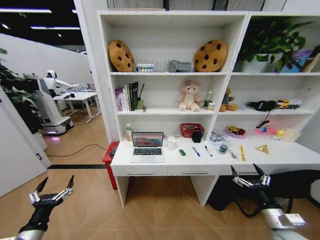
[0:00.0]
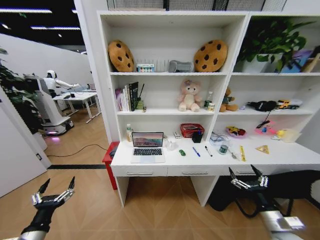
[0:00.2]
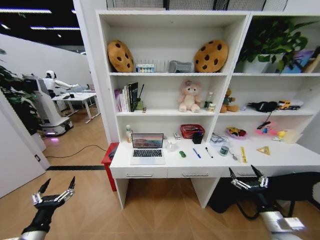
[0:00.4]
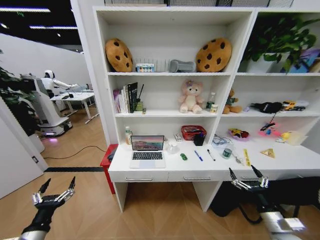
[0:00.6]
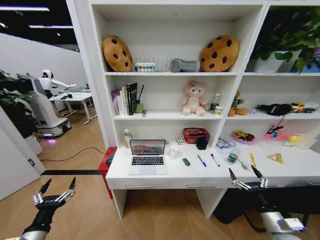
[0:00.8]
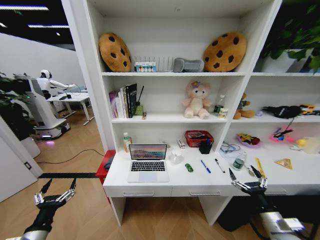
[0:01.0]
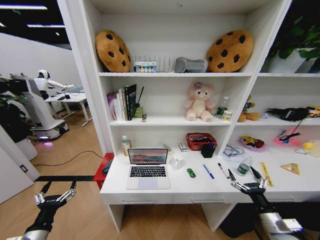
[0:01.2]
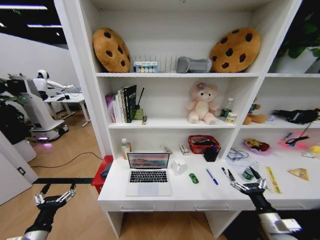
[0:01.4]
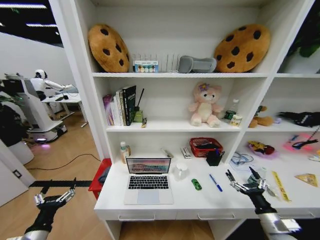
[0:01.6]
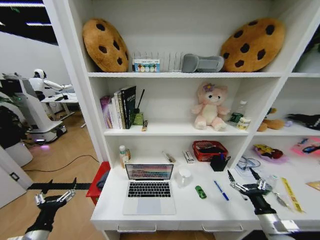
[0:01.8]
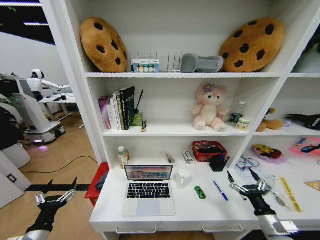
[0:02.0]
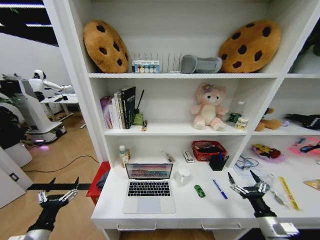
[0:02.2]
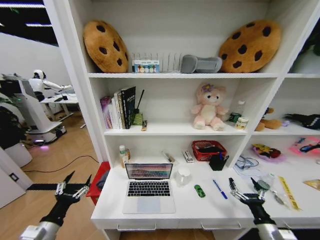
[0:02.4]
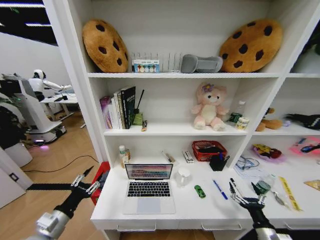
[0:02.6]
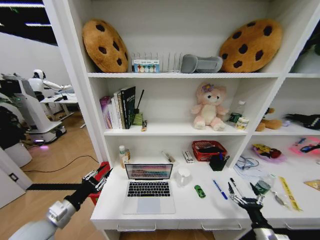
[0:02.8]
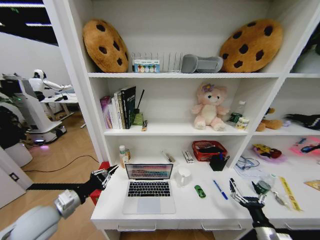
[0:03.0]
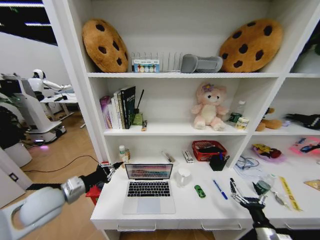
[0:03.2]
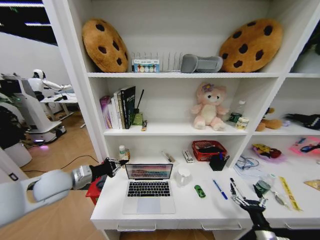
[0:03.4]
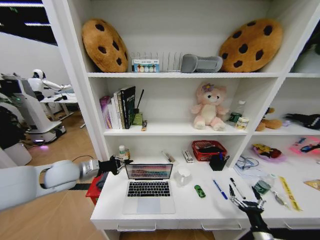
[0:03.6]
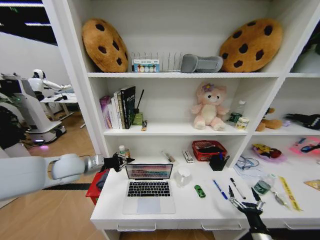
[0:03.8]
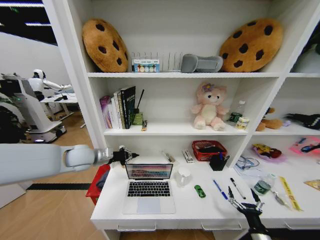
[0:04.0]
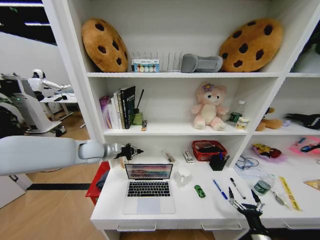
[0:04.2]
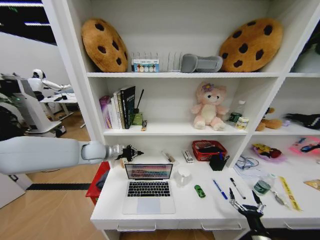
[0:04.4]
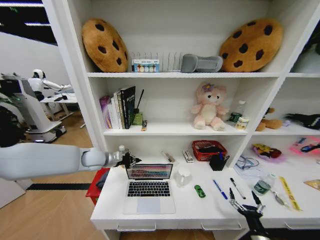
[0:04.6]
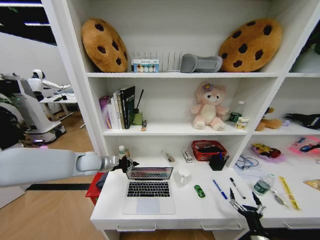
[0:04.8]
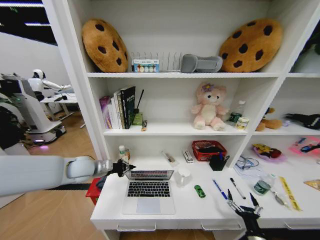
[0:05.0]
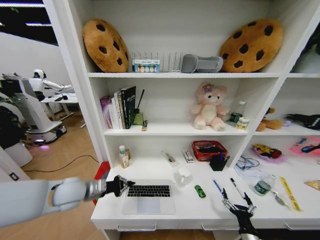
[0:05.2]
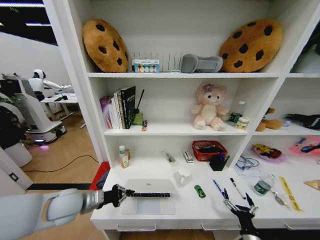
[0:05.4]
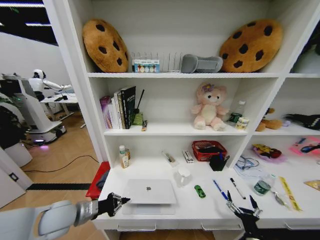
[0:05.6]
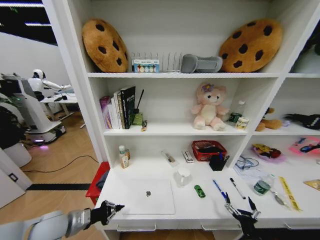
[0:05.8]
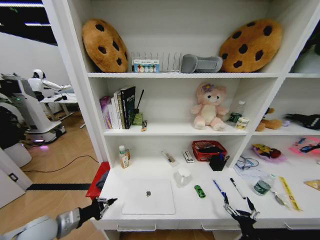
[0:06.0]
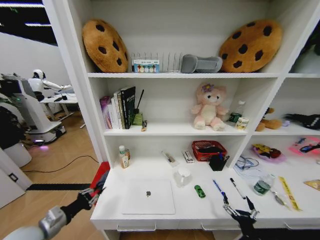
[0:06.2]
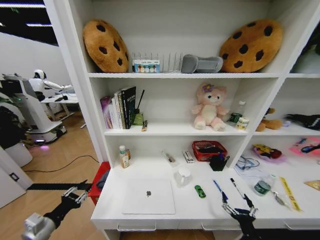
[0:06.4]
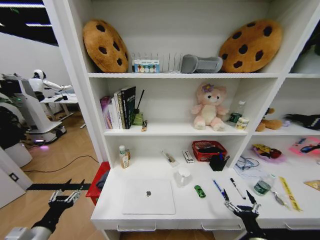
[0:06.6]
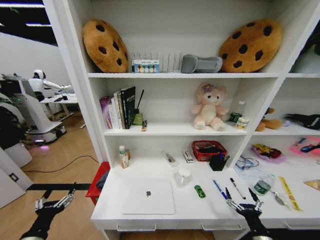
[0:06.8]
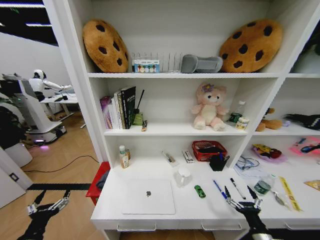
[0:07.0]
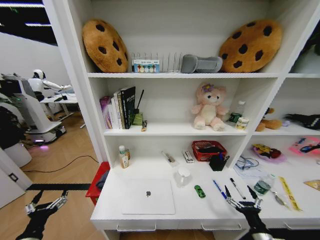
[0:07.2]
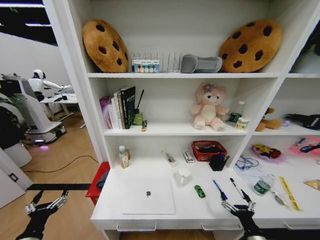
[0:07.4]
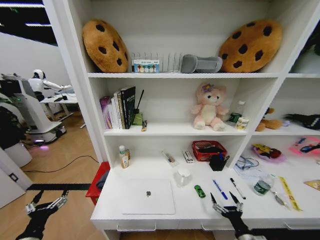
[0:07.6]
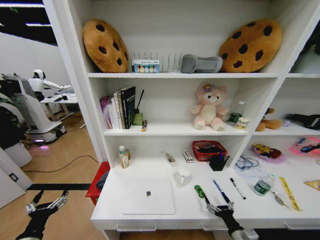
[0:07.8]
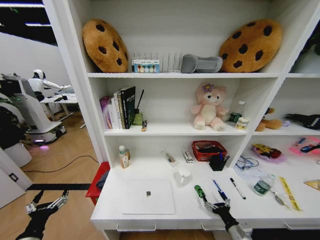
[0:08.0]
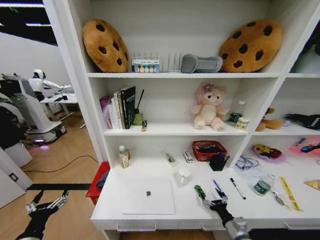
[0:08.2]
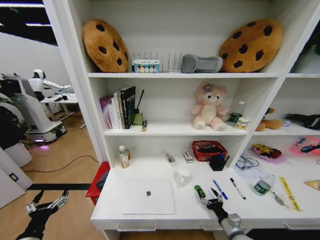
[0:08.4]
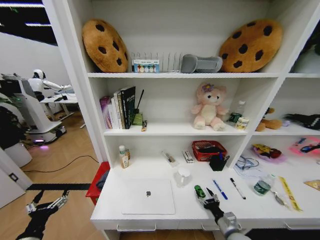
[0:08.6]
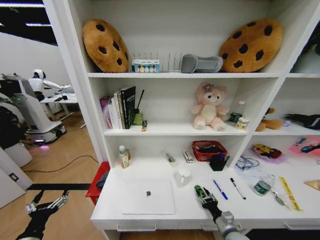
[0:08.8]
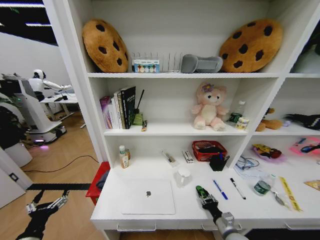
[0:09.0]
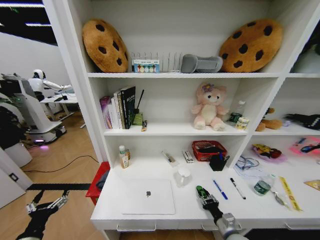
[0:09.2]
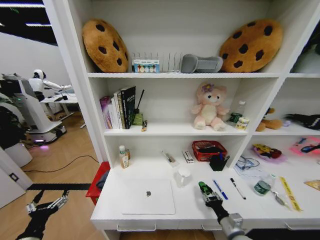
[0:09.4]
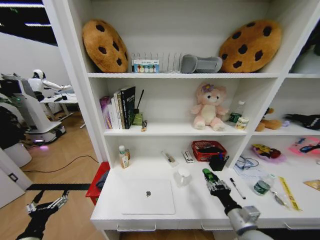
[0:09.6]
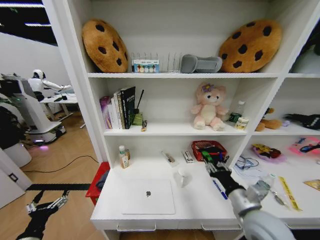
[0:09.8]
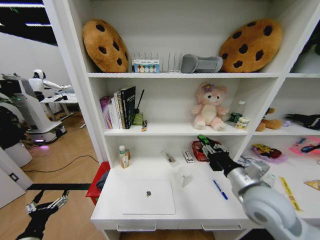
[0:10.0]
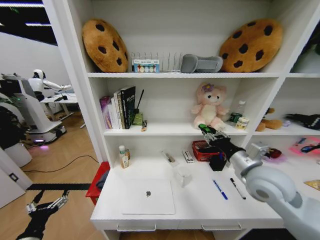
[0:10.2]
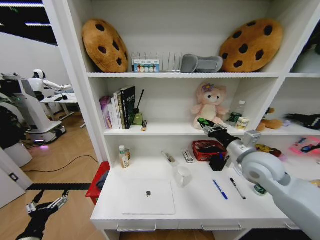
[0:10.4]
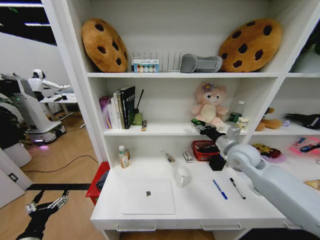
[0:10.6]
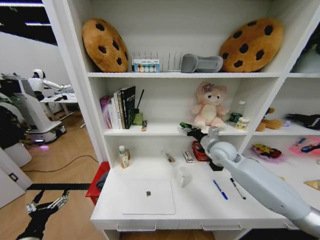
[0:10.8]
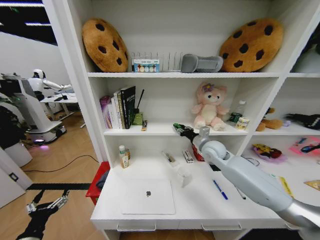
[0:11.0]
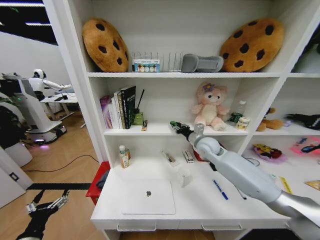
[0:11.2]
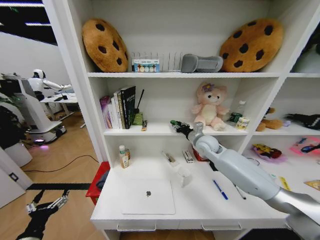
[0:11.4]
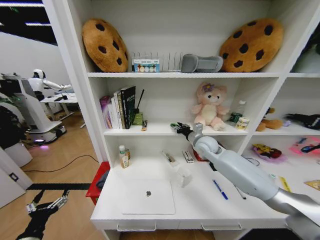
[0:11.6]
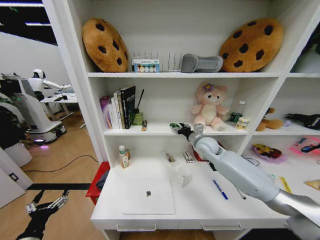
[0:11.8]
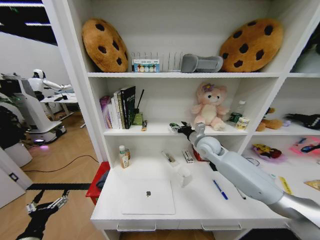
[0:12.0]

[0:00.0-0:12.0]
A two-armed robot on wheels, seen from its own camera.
Task of the whole recording: Organize the objects on the table.
0:01.6 to 0:03.0: The left gripper is displaced forward and upward by about 15 cm, and closes its fingers, while the right gripper is displaced downward by approximately 5 cm.
0:03.0 to 0:04.4: The left gripper is displaced forward and to the right by some 25 cm.
0:04.4 to 0:06.0: The left gripper heads backward, downward and to the left, covering about 30 cm.
0:06.0 to 0:07.6: The left gripper goes some 10 cm backward, and opens up.
0:07.6 to 0:09.0: The right gripper is displaced forward by about 5 cm, and closes its fingers.
0:09.0 to 0:10.4: The right gripper moves upward, some 35 cm.
0:10.4 to 0:12.0: The right gripper heads forward and to the left, covering about 15 cm, and opens.

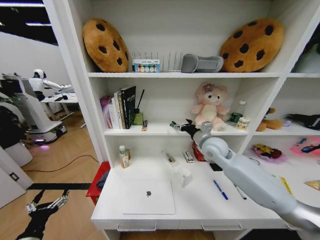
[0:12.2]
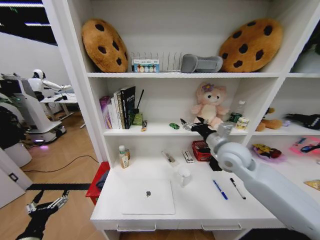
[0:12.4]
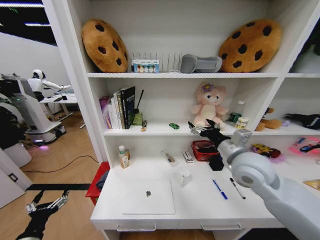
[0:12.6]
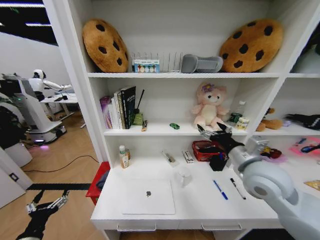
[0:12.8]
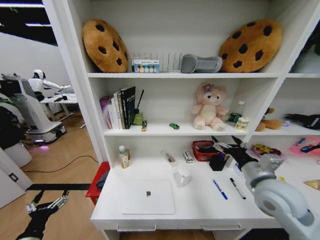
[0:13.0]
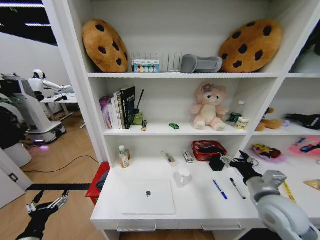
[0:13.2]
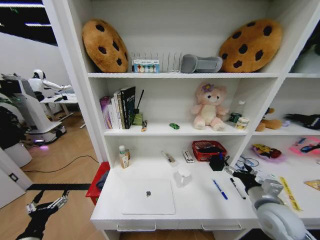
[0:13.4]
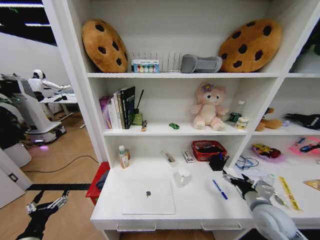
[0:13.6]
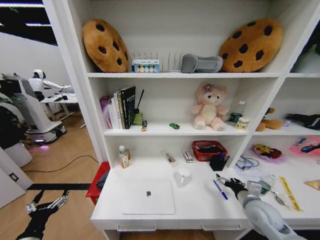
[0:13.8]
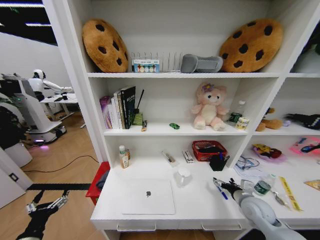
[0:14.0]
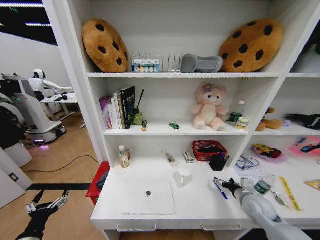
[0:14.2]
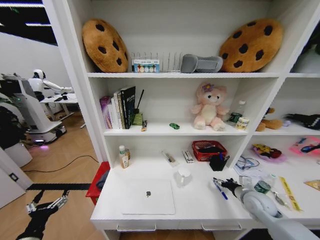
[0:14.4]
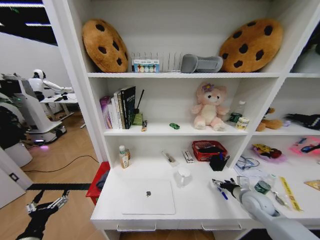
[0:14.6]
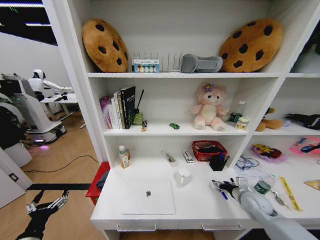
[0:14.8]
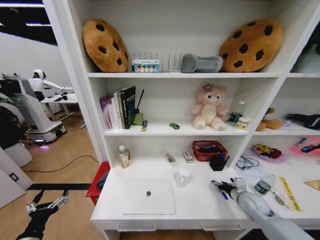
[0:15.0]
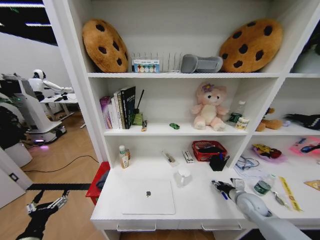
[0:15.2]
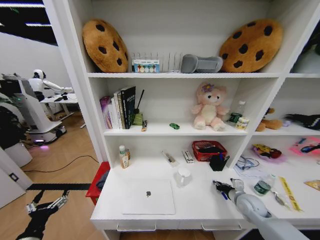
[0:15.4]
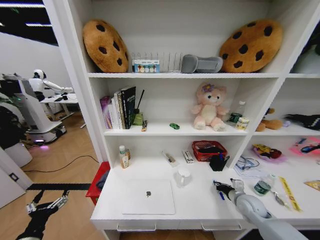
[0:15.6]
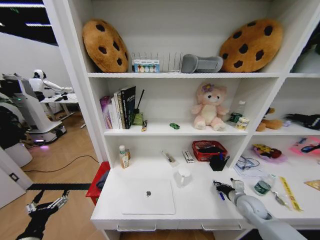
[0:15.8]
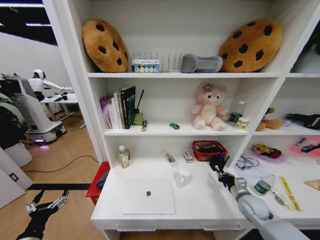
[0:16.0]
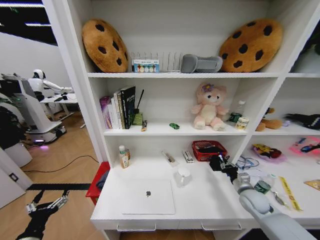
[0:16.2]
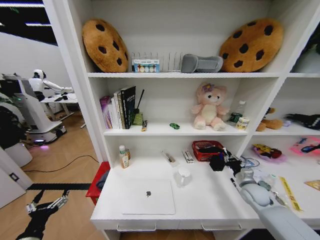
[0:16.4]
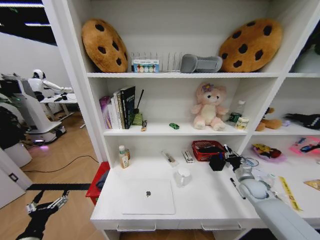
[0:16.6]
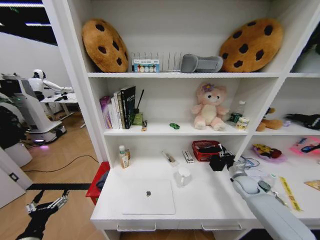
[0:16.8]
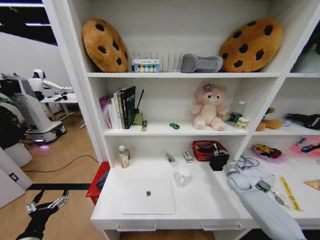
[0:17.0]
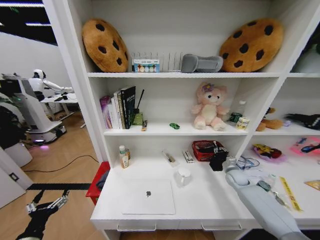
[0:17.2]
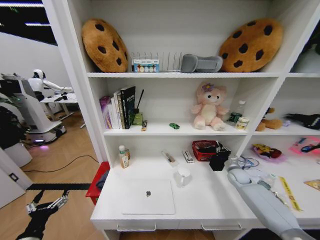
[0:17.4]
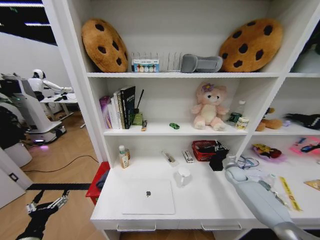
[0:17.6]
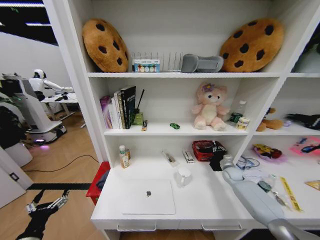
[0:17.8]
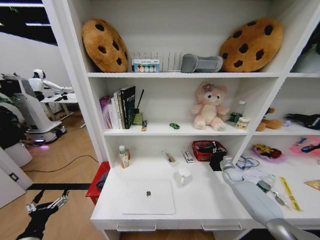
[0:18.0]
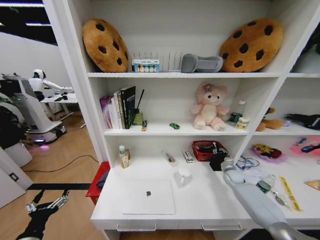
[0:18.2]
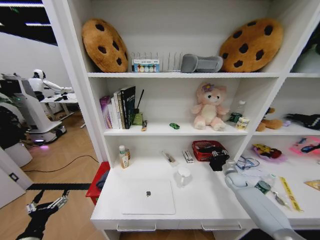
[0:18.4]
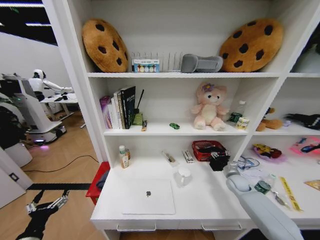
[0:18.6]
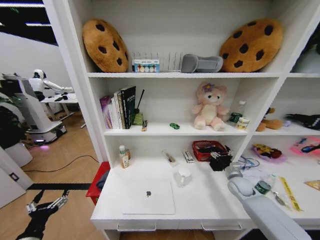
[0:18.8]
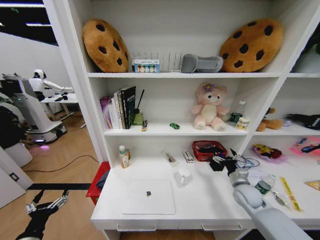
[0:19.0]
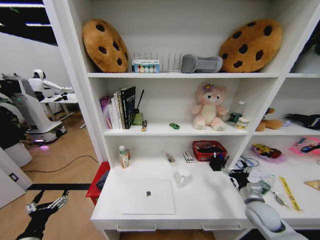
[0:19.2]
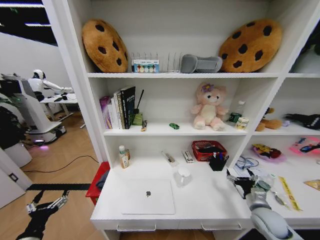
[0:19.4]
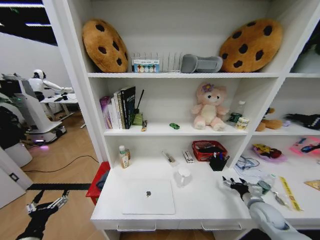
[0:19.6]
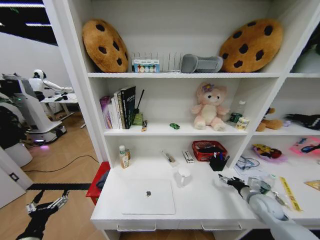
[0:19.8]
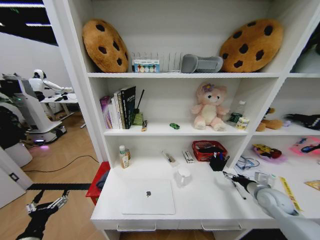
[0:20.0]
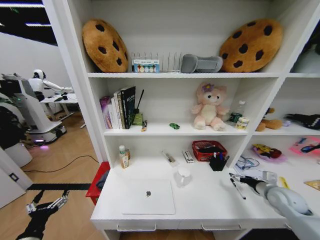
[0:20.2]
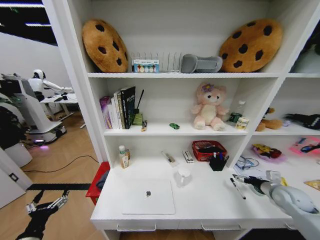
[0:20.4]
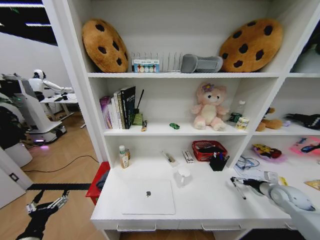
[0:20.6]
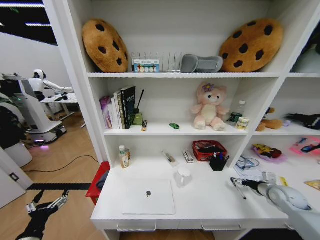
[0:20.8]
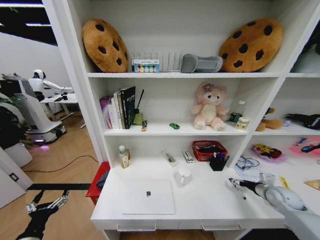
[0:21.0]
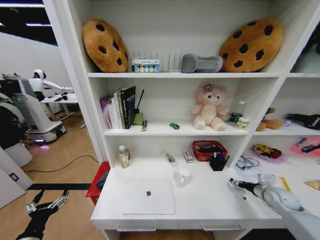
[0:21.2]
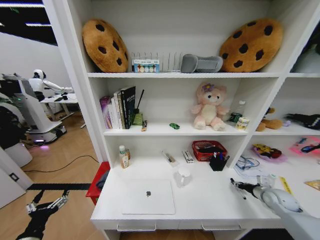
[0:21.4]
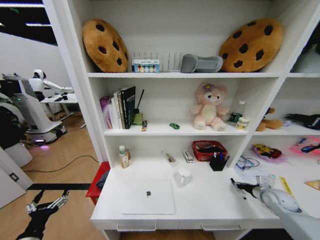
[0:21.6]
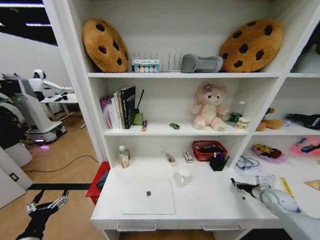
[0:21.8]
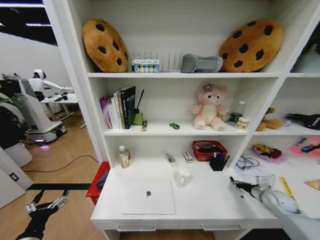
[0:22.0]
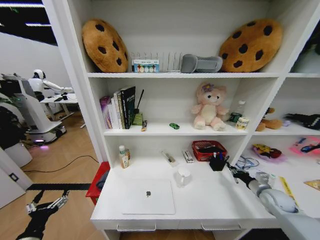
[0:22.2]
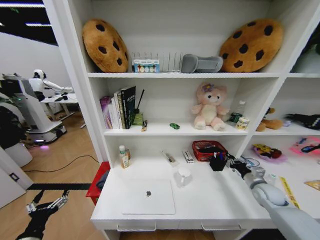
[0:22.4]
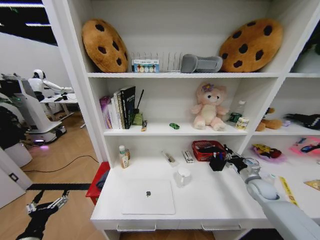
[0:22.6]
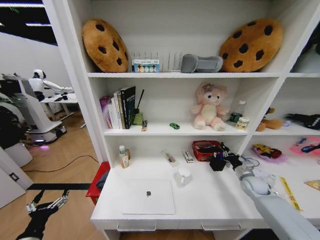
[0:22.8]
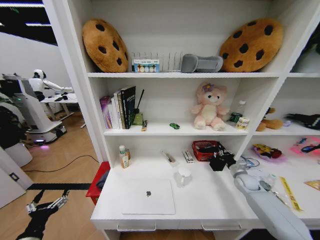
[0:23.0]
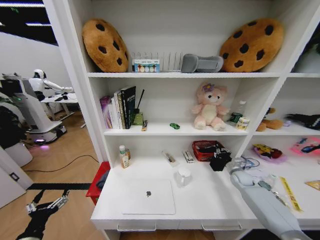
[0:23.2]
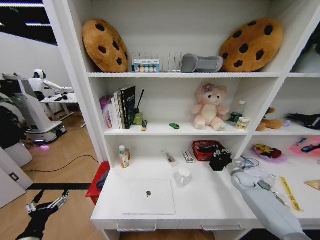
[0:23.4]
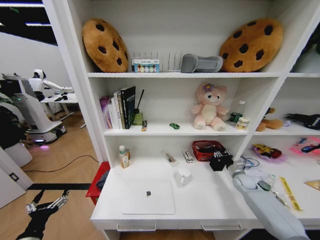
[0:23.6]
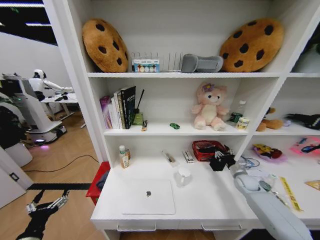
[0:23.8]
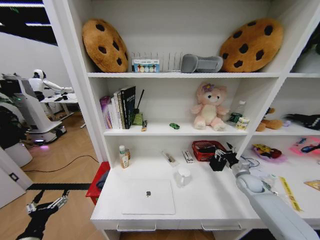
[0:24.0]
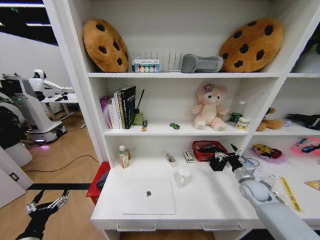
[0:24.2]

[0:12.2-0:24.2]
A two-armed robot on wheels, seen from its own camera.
Task of the whole recording: Organize the objects on the table.
0:12.2 to 0:13.8: The right gripper shifts approximately 30 cm downward, backward and to the right.
0:13.8 to 0:15.2: The right gripper is displaced downward by some 5 cm, and closes its fingers.
0:15.2 to 0:16.6: The right gripper is displaced forward and to the right by about 10 cm, and closes its fingers.
0:16.6 to 0:18.2: The right gripper is displaced forward and downward by approximately 10 cm.
0:18.2 to 0:19.8: The right gripper is displaced backward by roughly 15 cm, and opens.
0:19.8 to 0:21.2: The right gripper travels to the right by some 10 cm.
0:21.2 to 0:22.6: The right gripper moves approximately 5 cm, and closes.
0:22.6 to 0:24.2: The right gripper moves some 5 cm forward and comes back, and opens up.
